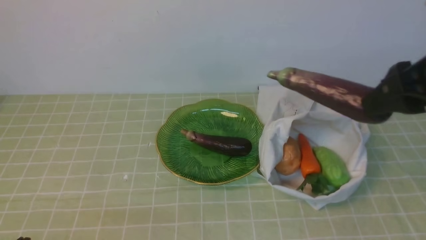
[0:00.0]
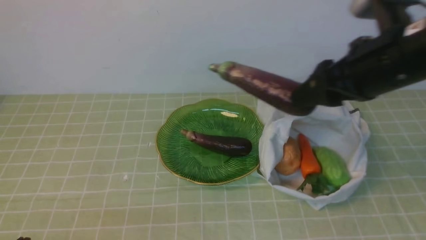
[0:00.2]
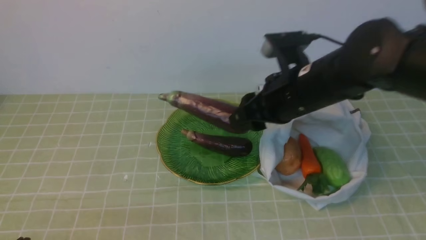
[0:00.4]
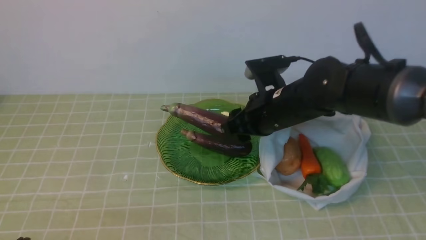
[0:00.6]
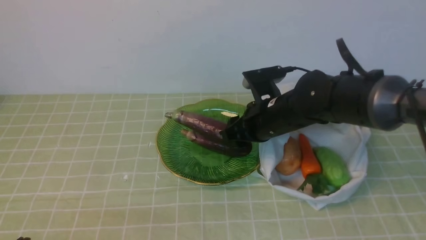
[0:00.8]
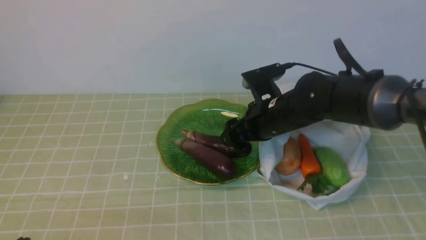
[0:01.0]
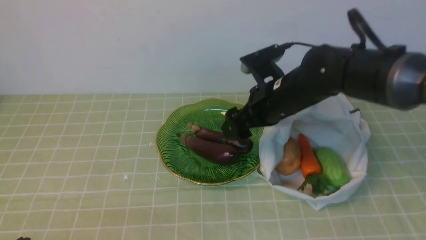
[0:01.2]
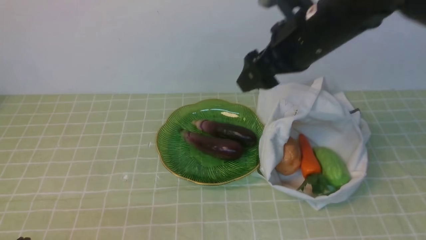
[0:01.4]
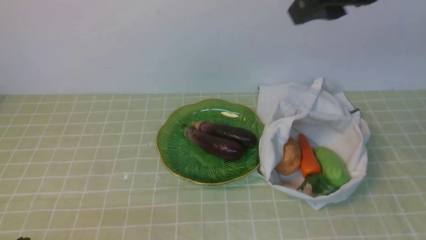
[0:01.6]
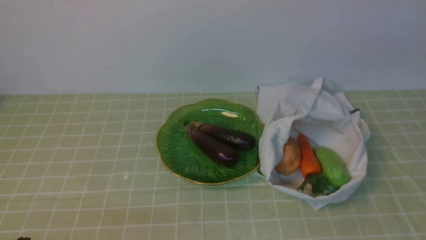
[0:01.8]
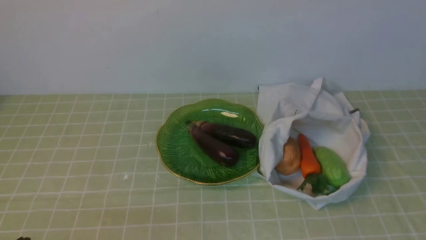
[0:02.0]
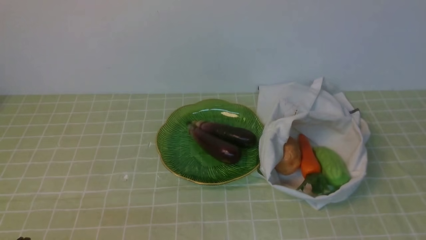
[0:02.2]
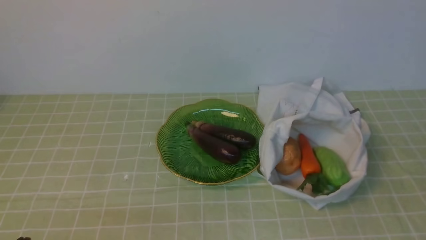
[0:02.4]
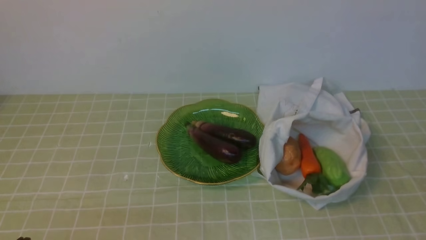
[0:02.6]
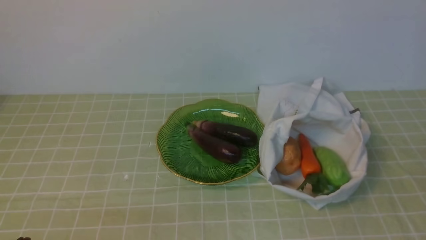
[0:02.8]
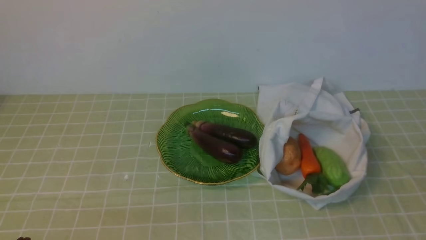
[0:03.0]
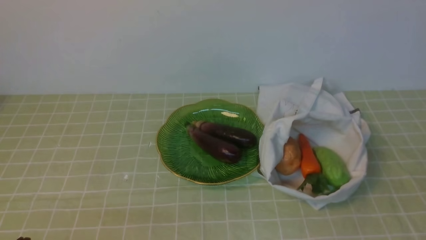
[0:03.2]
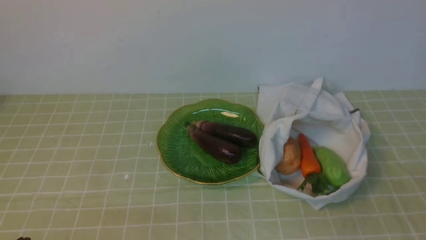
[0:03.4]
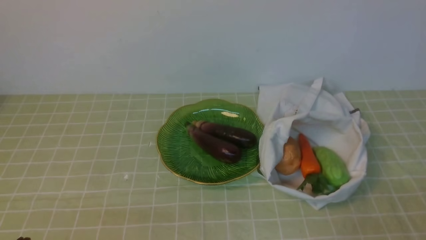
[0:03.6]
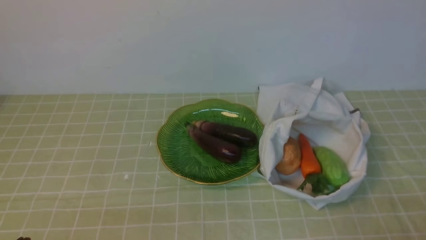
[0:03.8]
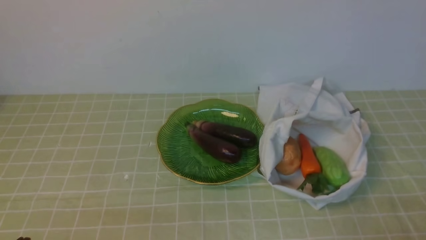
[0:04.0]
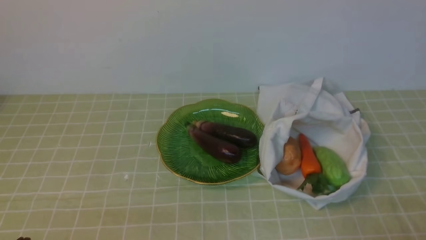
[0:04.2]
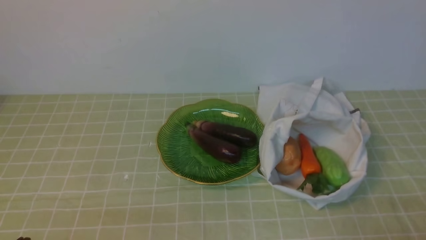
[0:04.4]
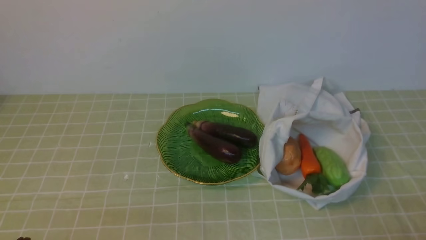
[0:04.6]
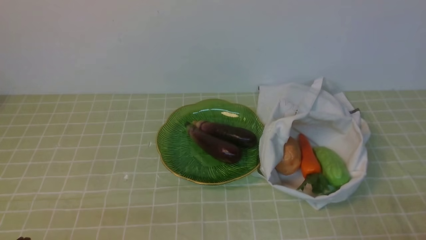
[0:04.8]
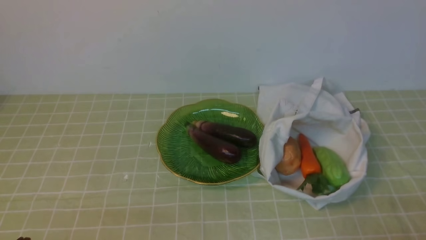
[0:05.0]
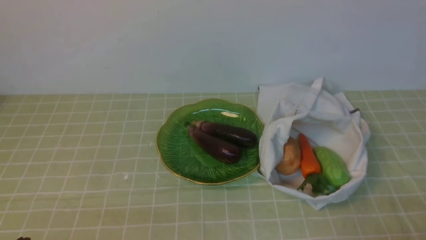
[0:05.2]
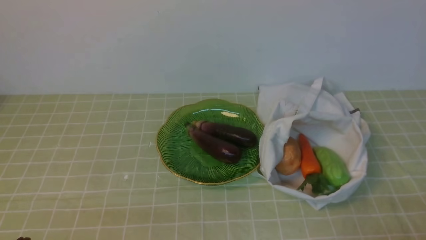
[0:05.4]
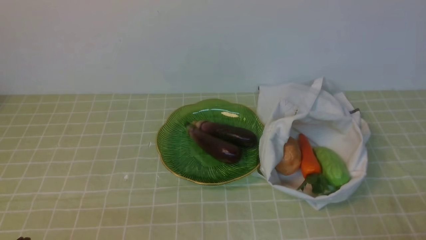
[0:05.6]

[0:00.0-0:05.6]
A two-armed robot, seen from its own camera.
Task of the whole recording: take vegetables from bag on green coffee tablecloth place on plate.
0:00.0 to 0:01.4: The right gripper is displaced to the left and forward by some 10 cm, and goes downward and returns, about 15 cm each way.
0:01.4 to 0:02.8: The right gripper shifts roughly 30 cm backward and to the right, and closes.
0:04.2 to 0:05.6: Both grippers stay about where they are.

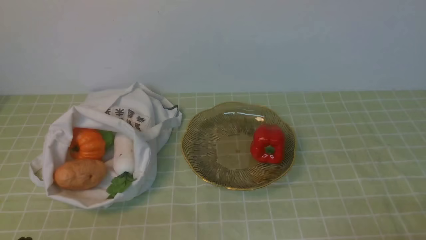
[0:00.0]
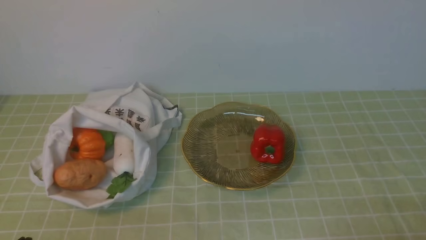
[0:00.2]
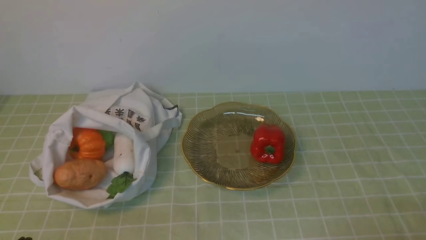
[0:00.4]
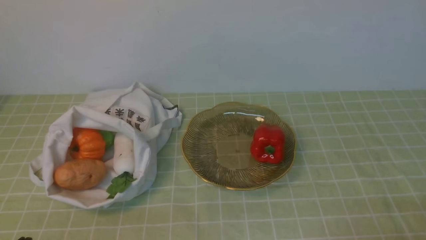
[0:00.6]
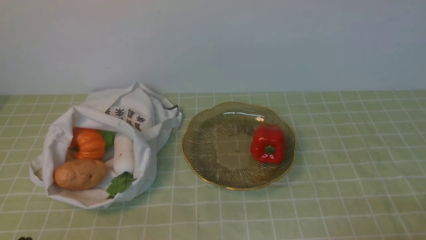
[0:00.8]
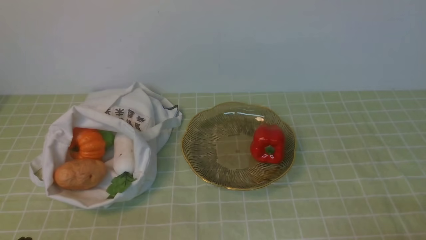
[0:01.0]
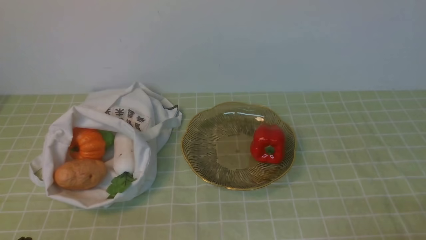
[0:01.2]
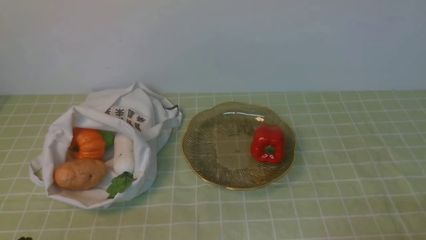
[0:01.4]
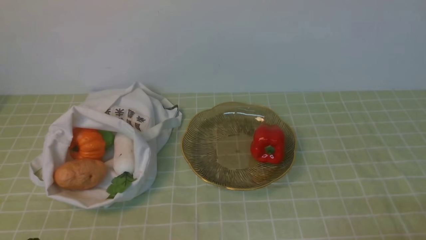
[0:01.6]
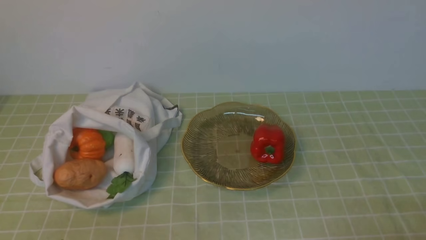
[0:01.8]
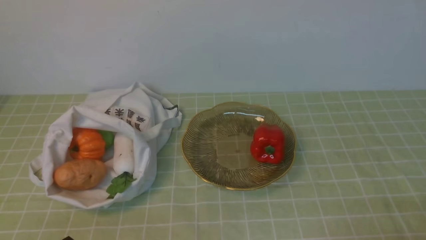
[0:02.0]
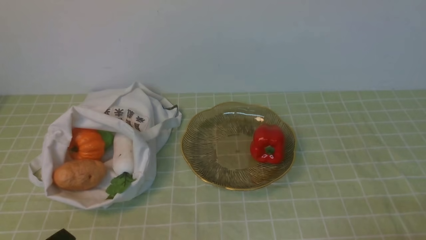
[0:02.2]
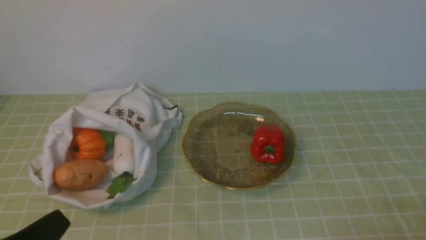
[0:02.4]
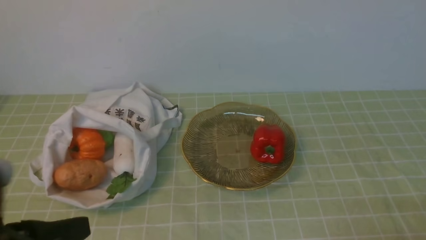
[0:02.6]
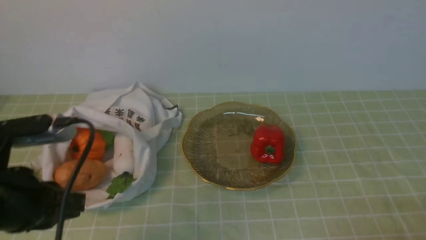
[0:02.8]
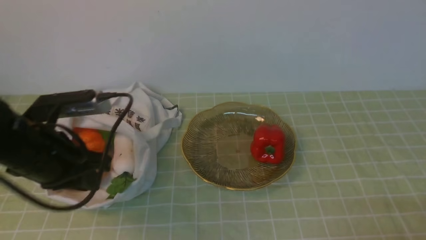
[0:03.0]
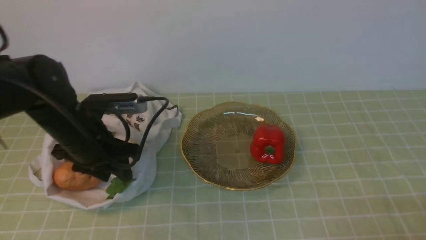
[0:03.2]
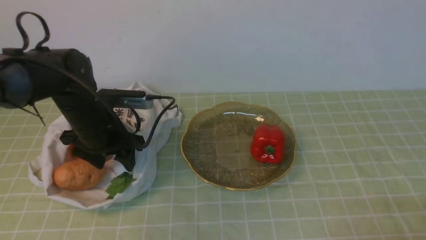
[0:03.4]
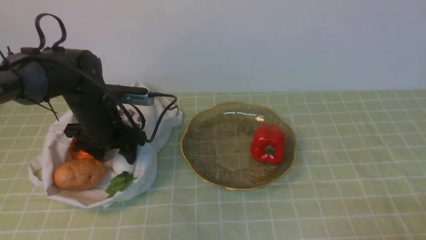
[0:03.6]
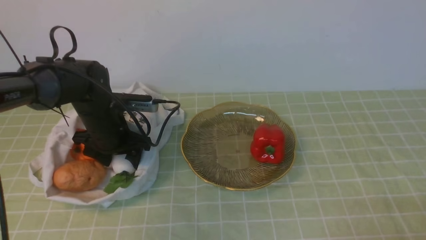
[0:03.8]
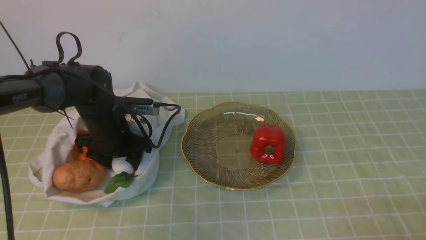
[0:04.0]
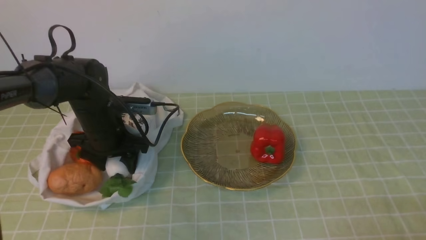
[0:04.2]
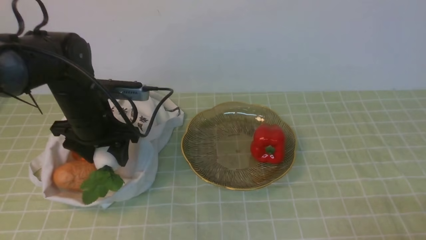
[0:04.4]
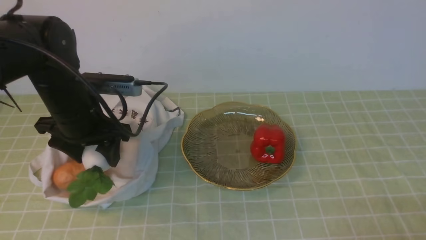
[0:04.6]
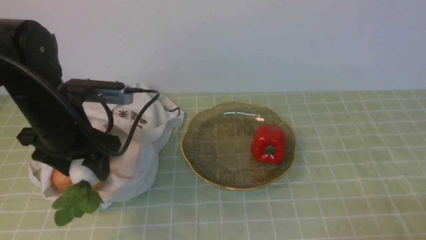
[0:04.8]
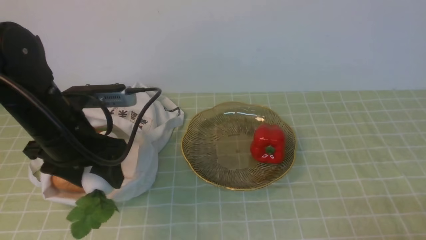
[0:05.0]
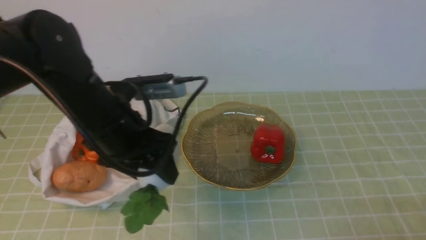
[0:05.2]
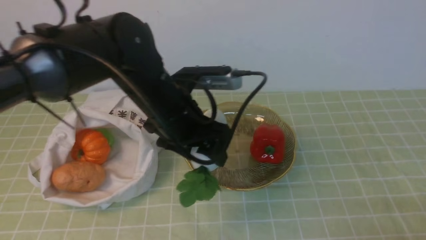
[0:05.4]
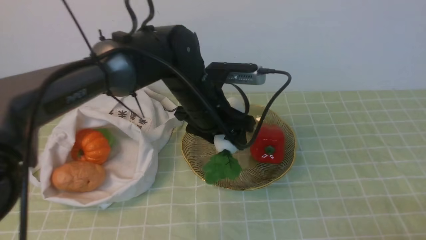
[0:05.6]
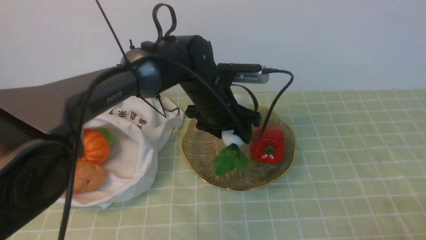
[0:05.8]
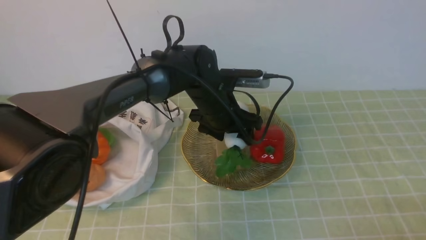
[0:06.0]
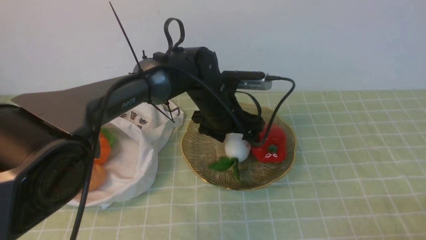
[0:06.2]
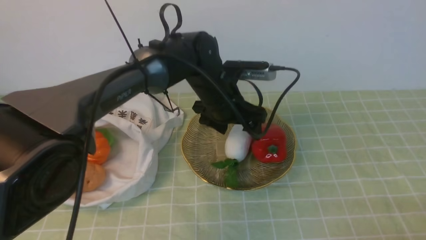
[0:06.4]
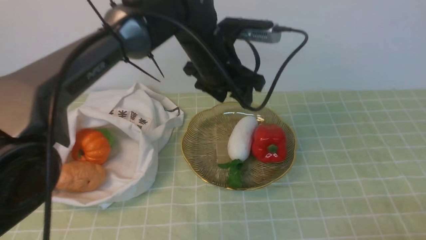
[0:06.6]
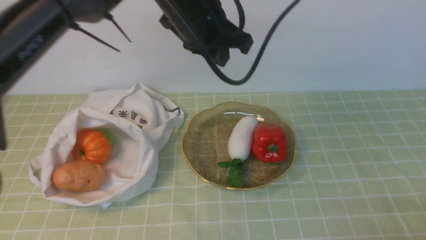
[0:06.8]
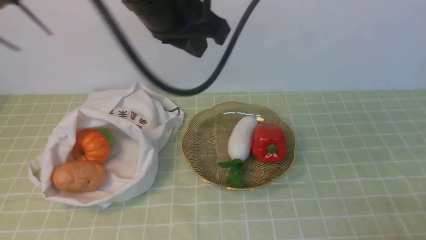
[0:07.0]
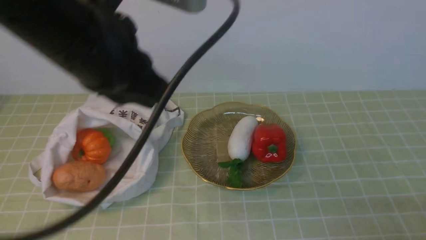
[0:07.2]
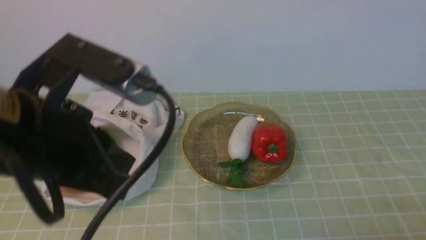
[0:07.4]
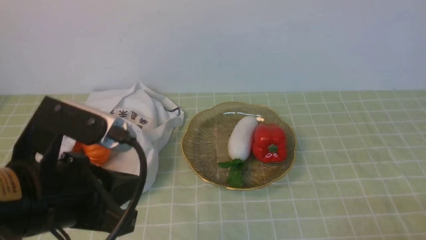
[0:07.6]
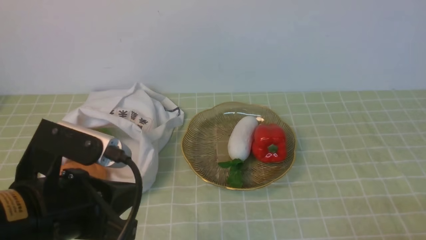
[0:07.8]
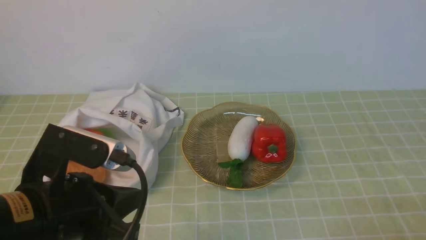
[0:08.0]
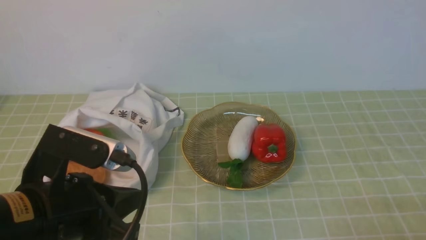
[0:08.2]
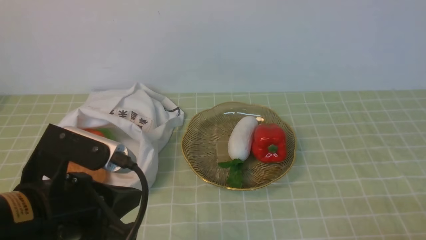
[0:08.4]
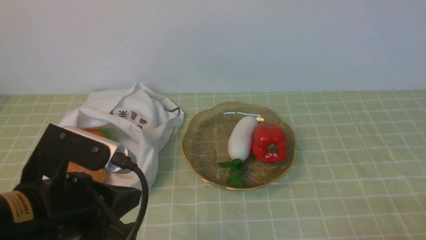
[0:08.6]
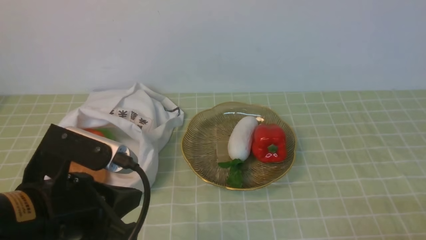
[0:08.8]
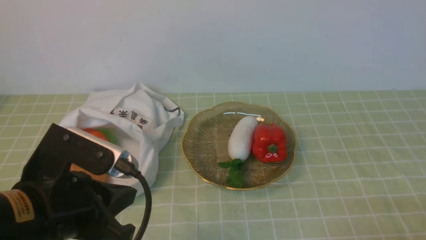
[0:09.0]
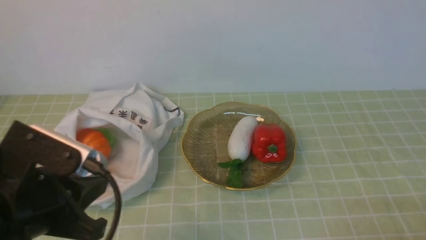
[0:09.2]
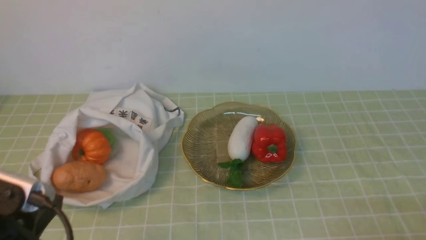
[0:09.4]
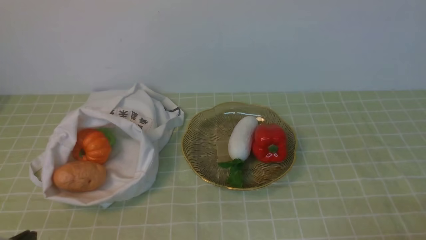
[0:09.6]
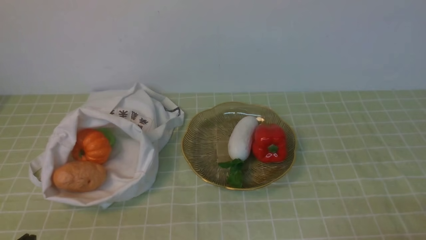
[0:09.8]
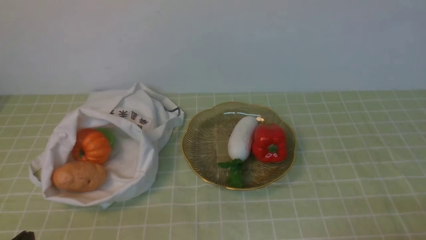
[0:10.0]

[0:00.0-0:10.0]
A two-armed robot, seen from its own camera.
Task of the whole recording: take vegetables from bag on green coffee tablecloth place on plate.
Step, 0:00.0 to 0:04.0: Grasp the radish with left gripper.
Step, 0:04.2 to 0:06.4: Place the radish on the plate with left gripper.
0:01.4 to 0:02.8: The left gripper moves forward and upward, roughly 15 cm.
0:02.8 to 0:04.2: The left gripper moves forward and downward, approximately 20 cm, and opens.
0:04.2 to 0:05.8: The left gripper moves to the right, about 20 cm.
0:05.8 to 0:07.2: The left gripper travels upward, backward and to the left by roughly 30 cm, and closes.
0:07.2 to 0:08.6: The left gripper is displaced downward and backward by some 15 cm.
0:08.6 to 0:10.0: The left gripper is displaced downward, to the left and backward by roughly 15 cm.

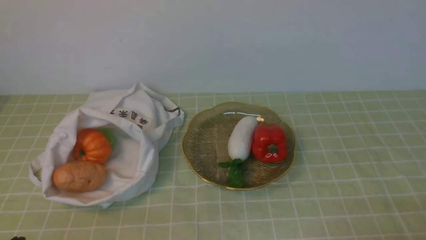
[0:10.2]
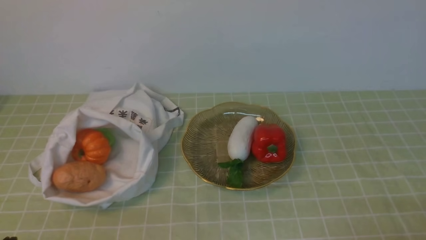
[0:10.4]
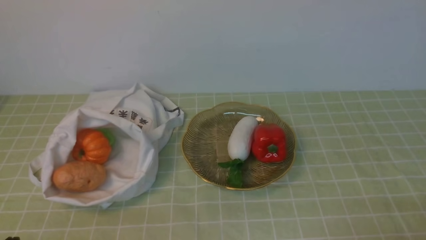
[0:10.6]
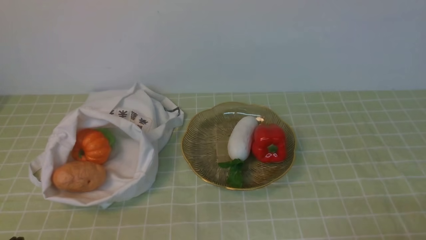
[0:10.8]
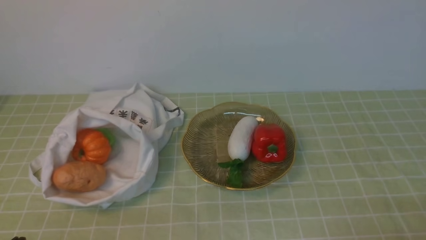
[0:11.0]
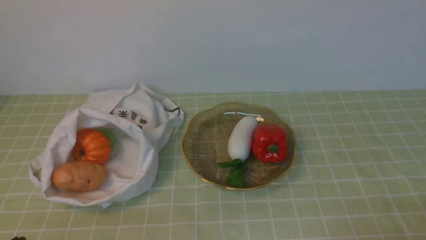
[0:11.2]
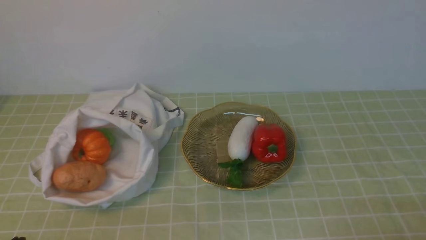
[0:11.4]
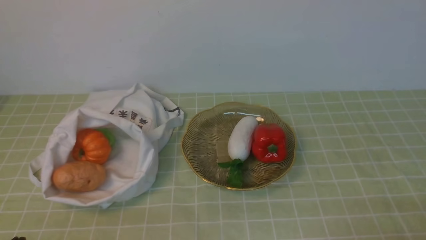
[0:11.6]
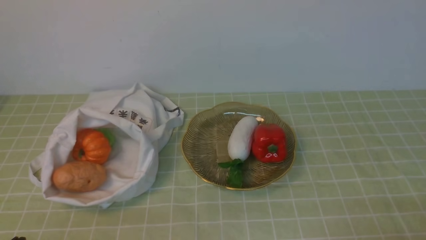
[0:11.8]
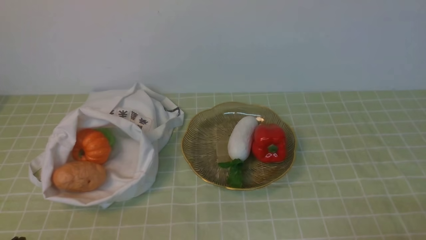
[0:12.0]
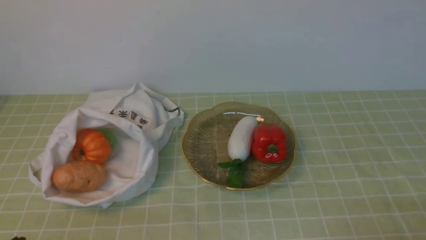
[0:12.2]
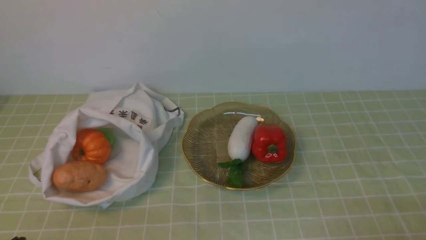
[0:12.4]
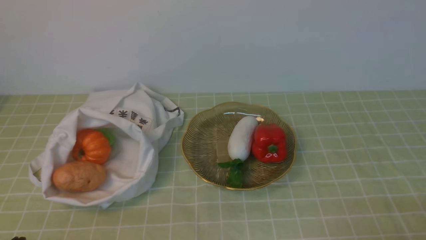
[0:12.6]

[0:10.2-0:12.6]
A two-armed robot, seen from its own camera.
Task of the whole recording: take vegetables from bag on green coffee tablecloth place on plate.
0:10.2 to 0:12.6: Neither gripper changes place.
